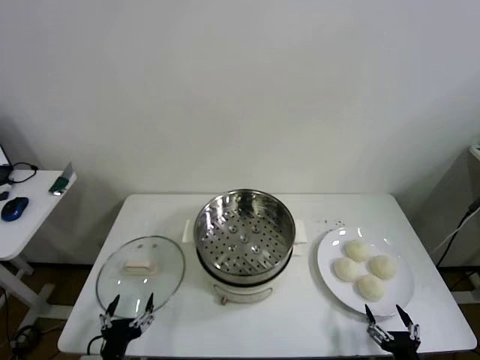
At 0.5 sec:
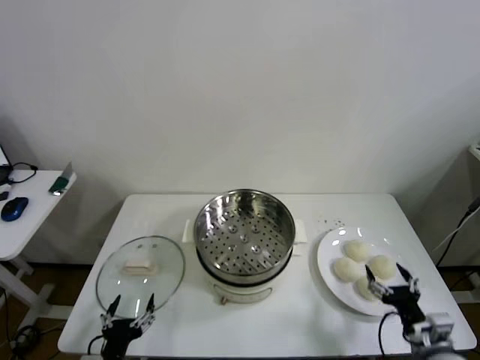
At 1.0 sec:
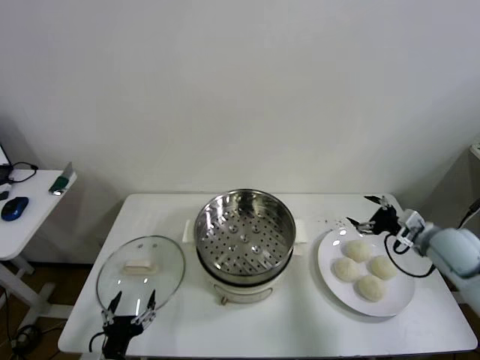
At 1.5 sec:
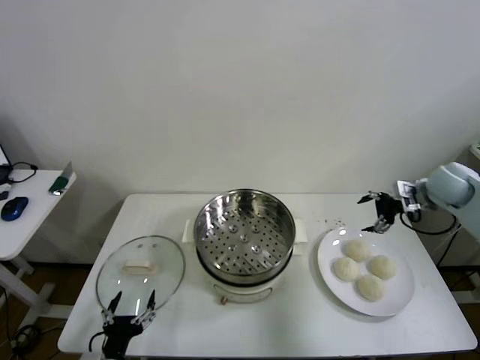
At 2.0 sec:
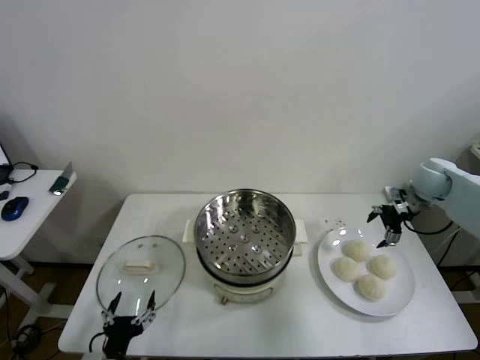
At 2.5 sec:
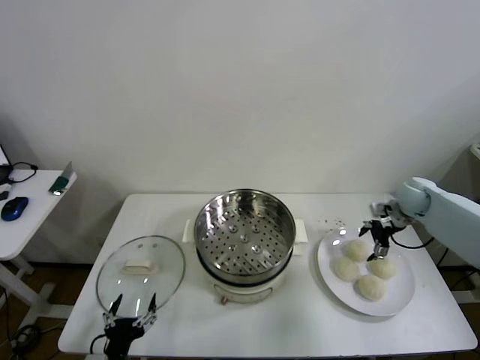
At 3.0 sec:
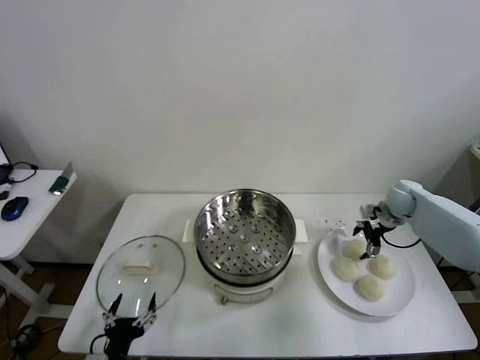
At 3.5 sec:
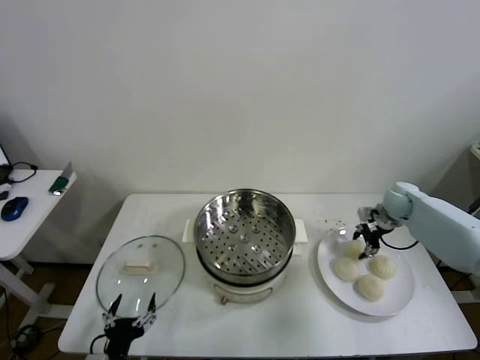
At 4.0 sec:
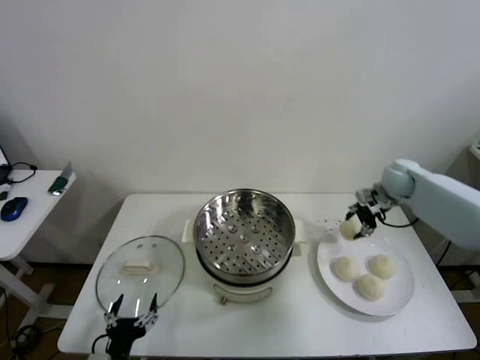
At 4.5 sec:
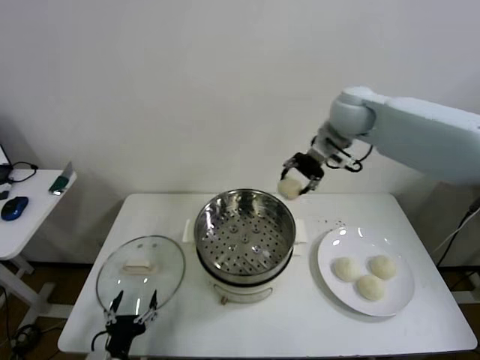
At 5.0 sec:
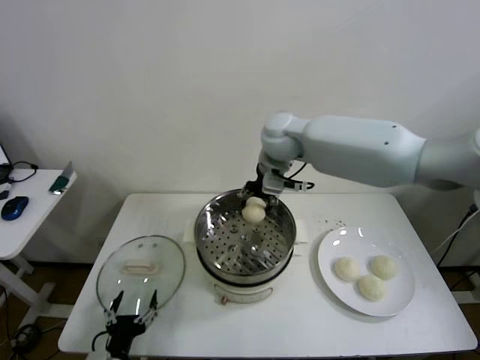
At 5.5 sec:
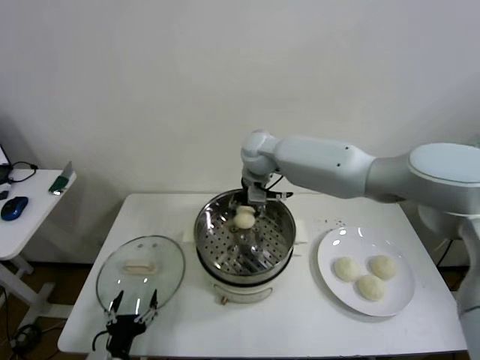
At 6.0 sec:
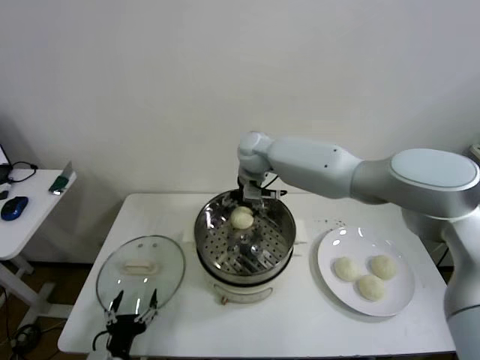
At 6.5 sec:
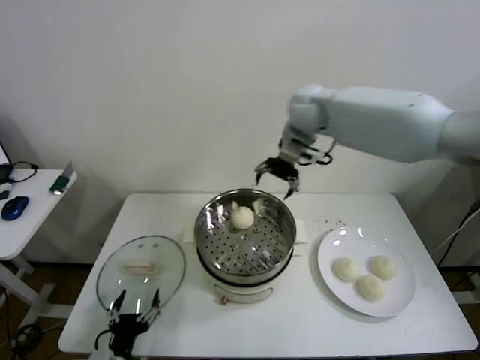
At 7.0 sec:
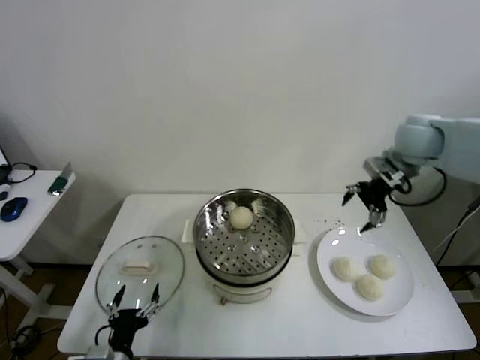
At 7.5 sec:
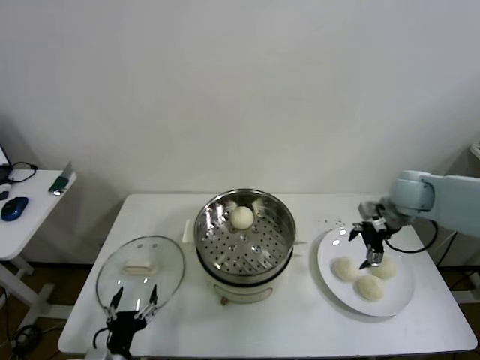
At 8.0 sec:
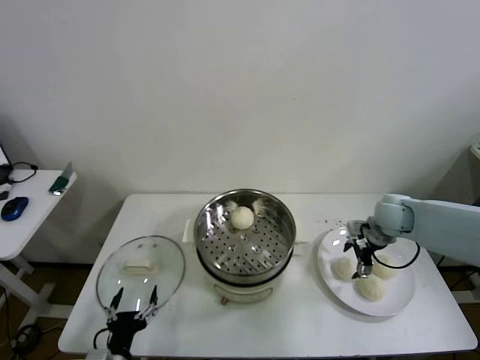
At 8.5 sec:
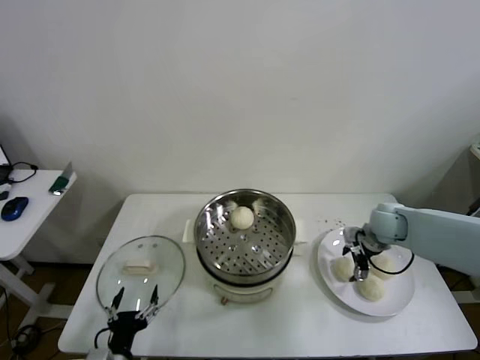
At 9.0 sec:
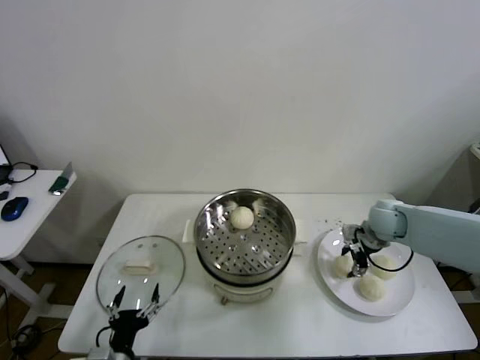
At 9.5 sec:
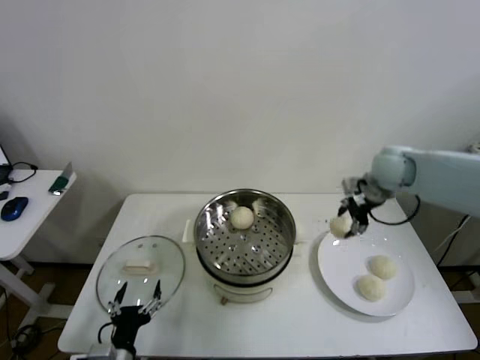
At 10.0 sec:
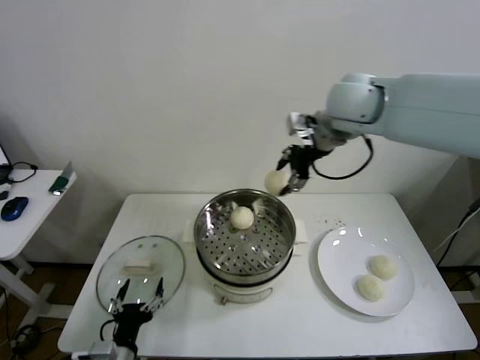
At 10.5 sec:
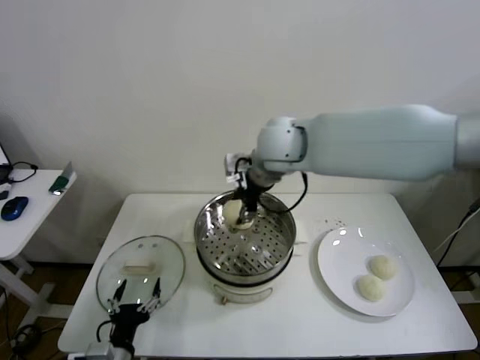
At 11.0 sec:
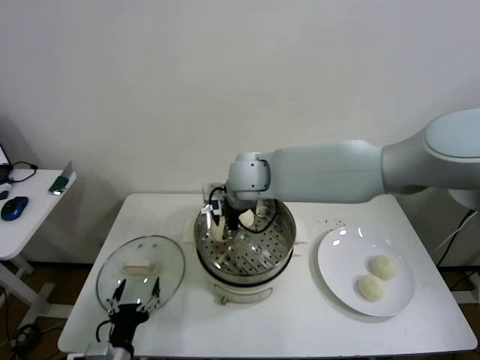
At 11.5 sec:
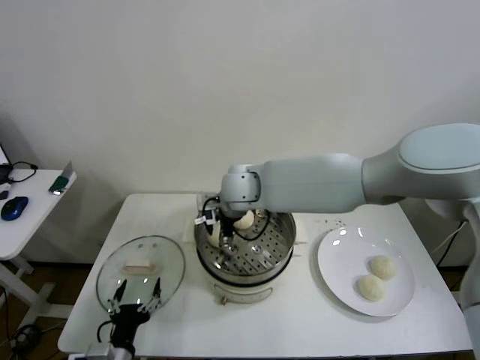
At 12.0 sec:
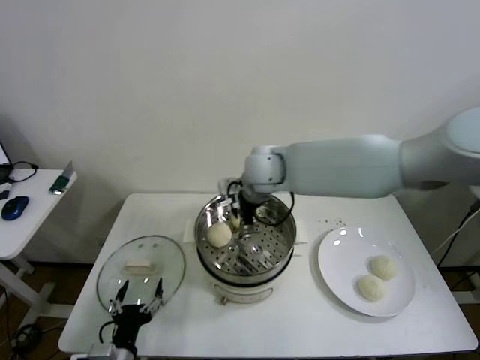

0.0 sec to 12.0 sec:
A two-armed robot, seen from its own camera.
Step, 0.0 sec to 3.0 sec: Grasp the baozi in the plate with right gripper.
Step, 4.0 sec to 6.0 sec: Place the baozi on the steamer with right gripper.
Step, 6.5 sec to 8.5 sec: Grasp the baozi in the plate with right gripper.
Step, 9.0 sec to 11.5 sec: Place the baozi on the steamer with right gripper.
2.0 sec to 4.0 sec: The right gripper moves to the left, roughly 5 cm, goes downward and returns, roughly 10 cm each way, and closes.
4.0 sec to 6.0 sec: The right gripper travels to the left by some 35 cm, and opens up.
6.0 sec to 8.0 sec: The right gripper shifts approximately 35 cm to the right and downward.
8.0 sec to 10.0 sec: The right gripper moves upward and to the left, about 35 cm, and closes its fingers.
10.0 sec to 12.0 sec: The right gripper moves downward and to the left, approximately 20 cm, and opens its fingers.

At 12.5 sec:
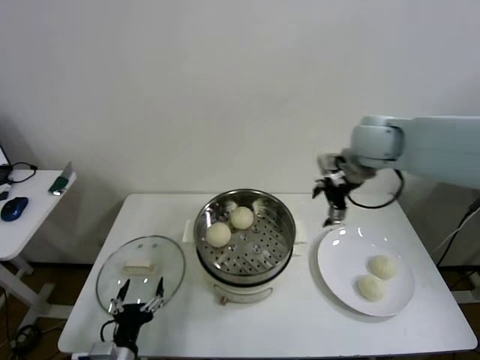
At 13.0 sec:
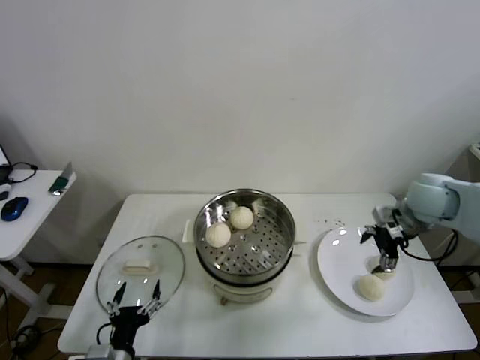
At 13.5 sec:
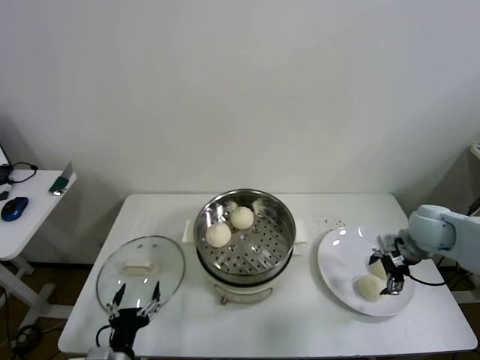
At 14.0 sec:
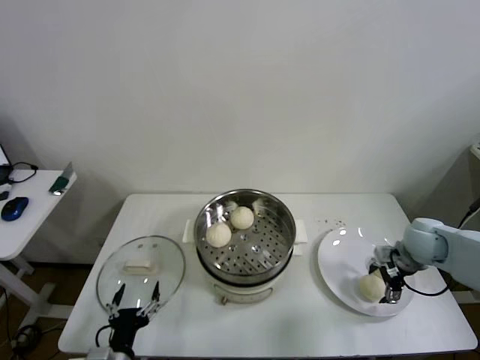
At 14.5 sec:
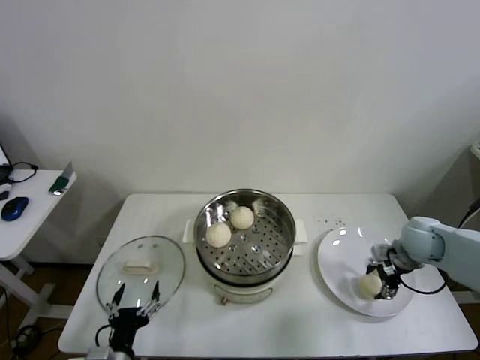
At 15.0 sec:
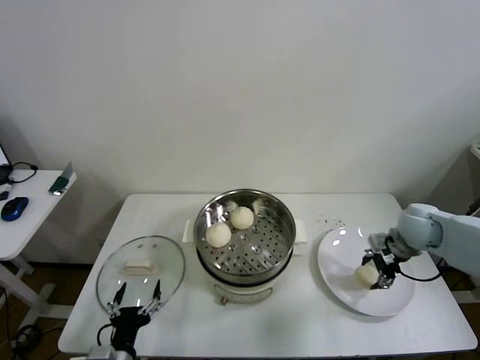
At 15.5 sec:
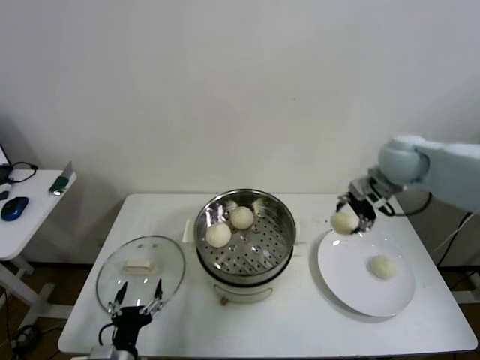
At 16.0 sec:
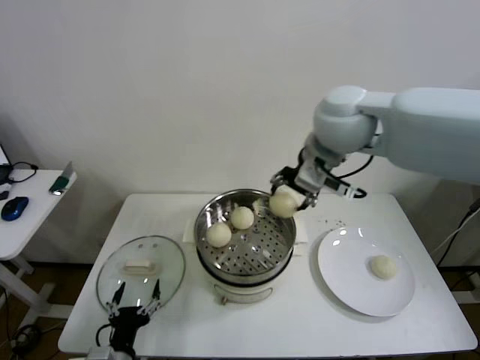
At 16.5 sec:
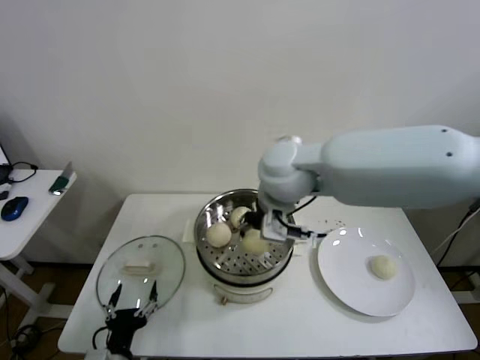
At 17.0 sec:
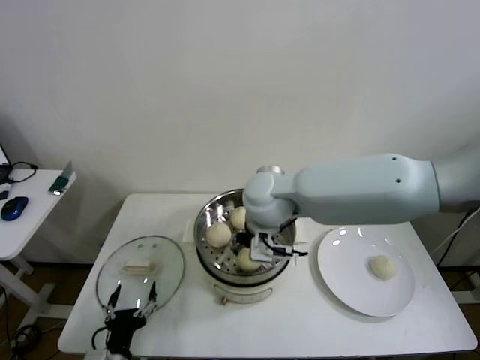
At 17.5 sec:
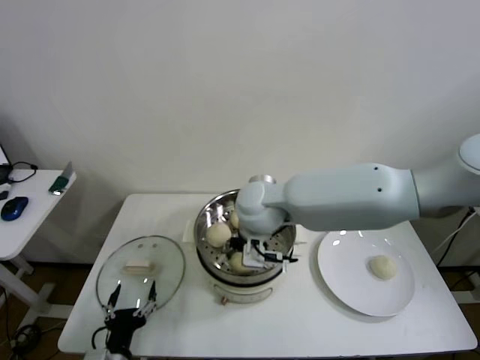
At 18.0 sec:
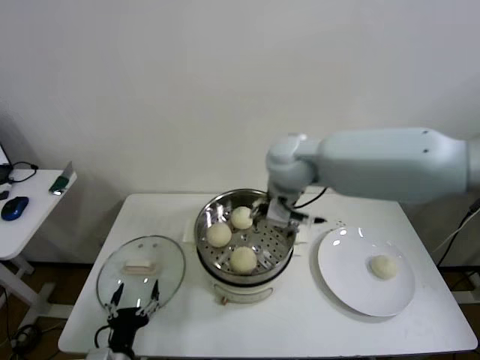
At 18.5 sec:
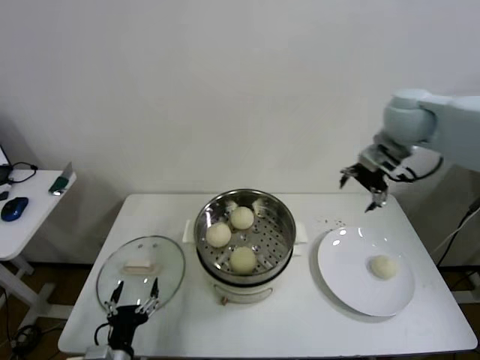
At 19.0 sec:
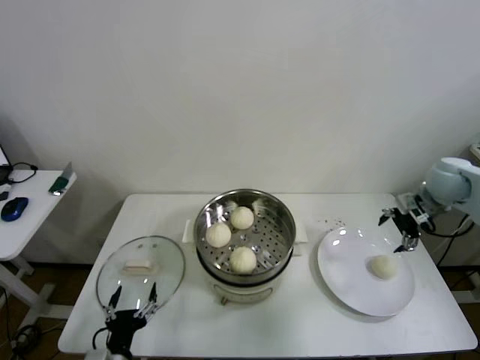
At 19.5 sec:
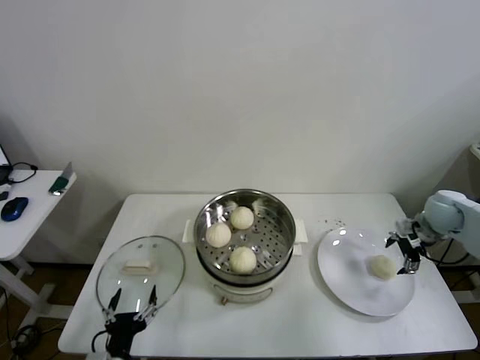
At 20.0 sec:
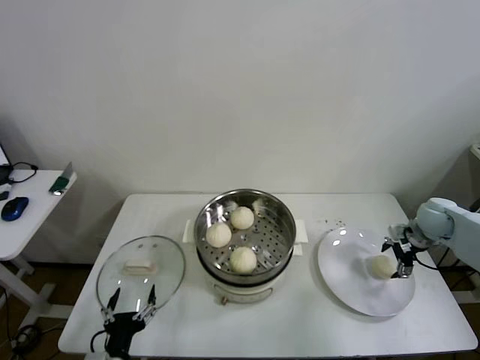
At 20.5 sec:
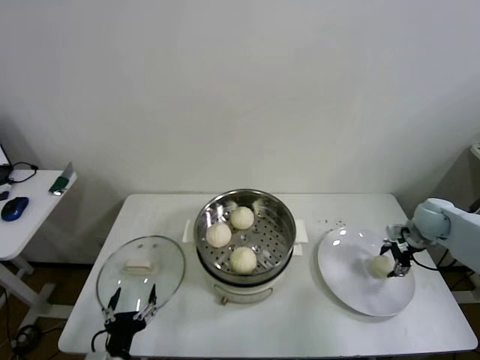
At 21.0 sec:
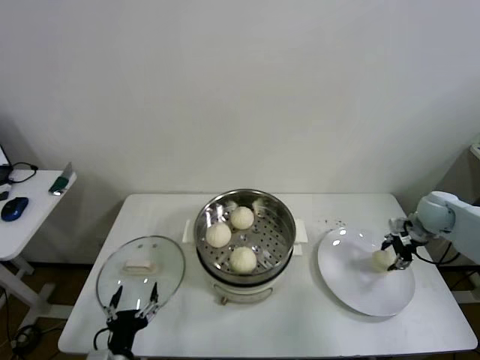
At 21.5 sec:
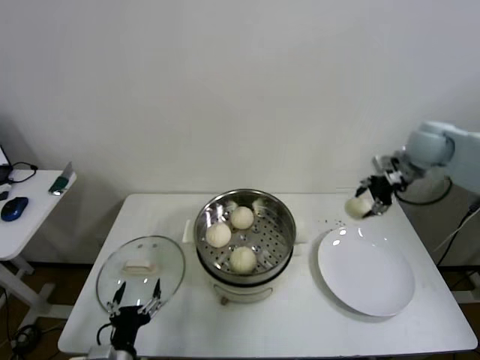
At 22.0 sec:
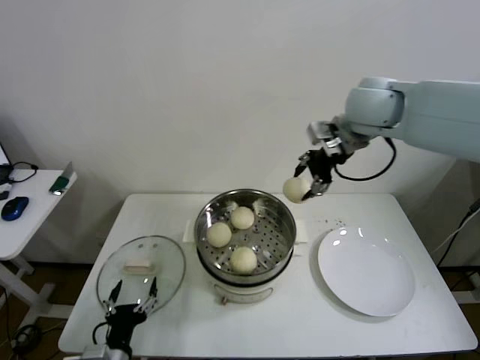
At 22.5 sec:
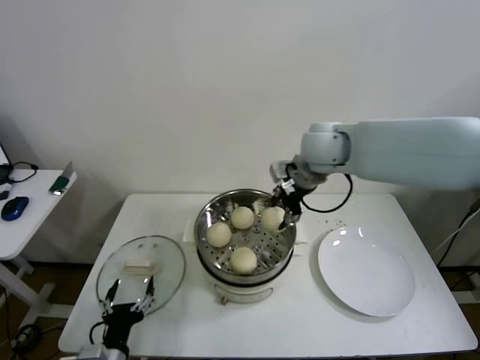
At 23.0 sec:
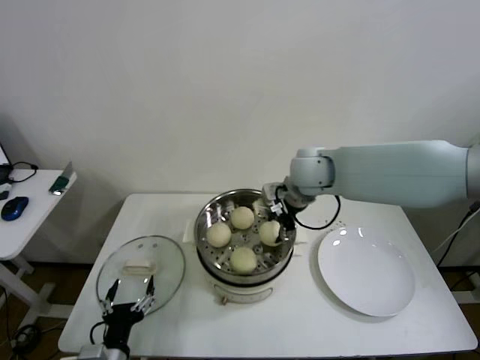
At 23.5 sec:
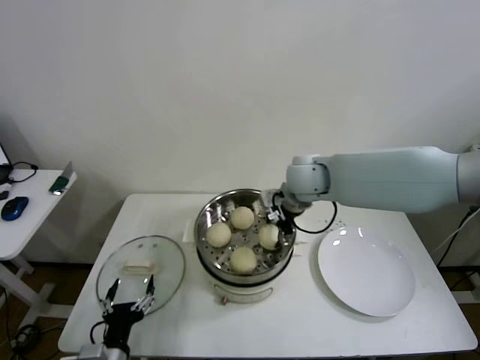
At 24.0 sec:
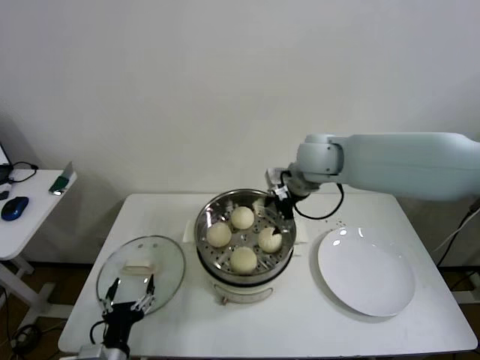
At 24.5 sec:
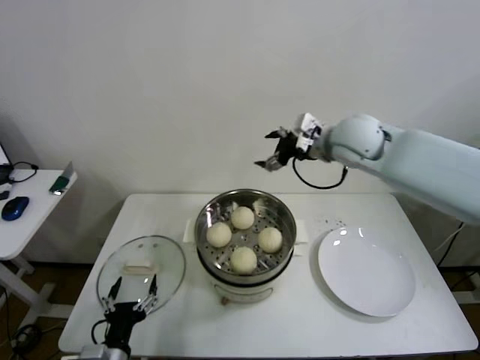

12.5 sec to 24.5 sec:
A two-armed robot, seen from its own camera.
Step, 12.5 sec to 14.0 sec: Grasp the baozi in the plate with right gripper.
Step, 14.5 sec to 17.5 sec: Place the baozi on the steamer with right gripper.
Step, 18.0 sec to 20.0 sec: Grasp the baozi in the plate with right gripper.
Step, 20.5 sec to 23.5 sec: Place the baozi on the steamer with right gripper.
12.5 sec to 14.5 sec: The right gripper goes about 25 cm downward and to the right, and closes.
14.5 sec to 16.5 sec: The right gripper goes approximately 40 cm to the left and upward.
16.5 sec to 18.5 sec: The right gripper travels to the right and forward by some 25 cm, and opens up.
18.5 sec to 20.5 sec: The right gripper moves downward and to the right, about 30 cm, and closes up.
20.5 sec to 22.5 sec: The right gripper travels to the left and upward by some 40 cm, and closes up.
22.5 sec to 24.5 sec: The right gripper goes approximately 5 cm to the right, reaches approximately 5 cm downward, then returns, and opens its fingers.

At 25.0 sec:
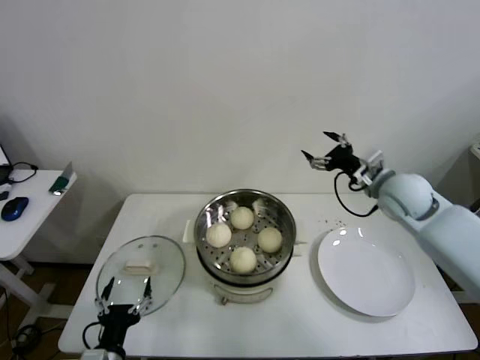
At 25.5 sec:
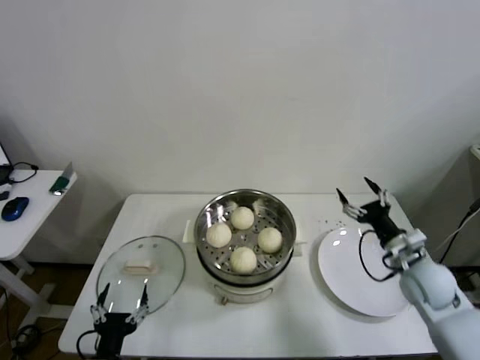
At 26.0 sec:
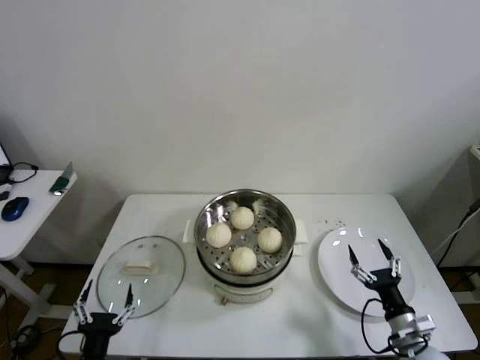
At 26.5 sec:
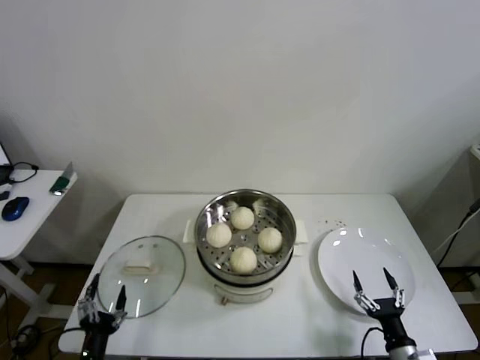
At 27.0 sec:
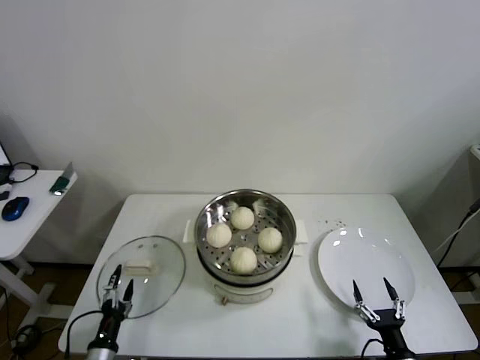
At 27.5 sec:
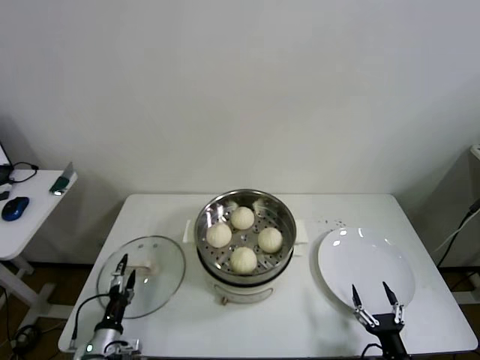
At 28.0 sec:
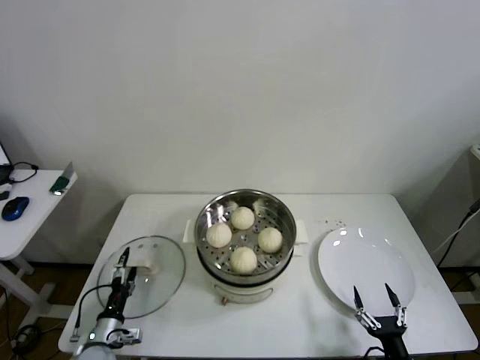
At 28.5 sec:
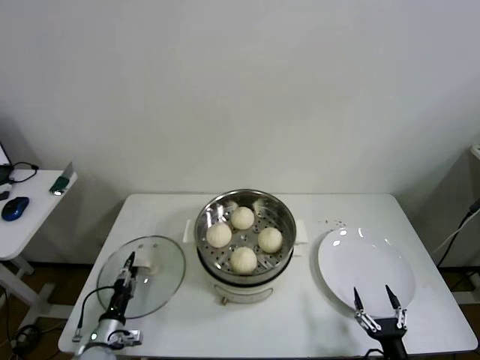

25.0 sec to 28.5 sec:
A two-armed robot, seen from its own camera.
25.0 sec to 27.0 sec: The right gripper goes about 50 cm backward and downward; the left gripper moves downward and to the left, roughly 10 cm.
27.0 sec to 28.5 sec: The left gripper goes some 10 cm forward, and closes.
